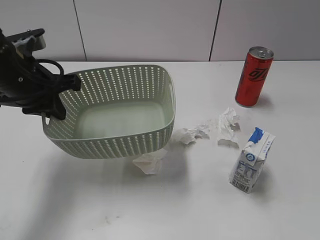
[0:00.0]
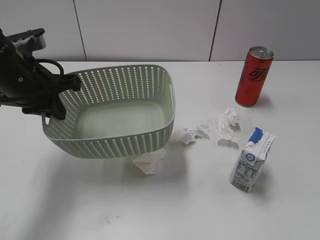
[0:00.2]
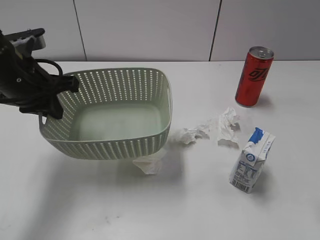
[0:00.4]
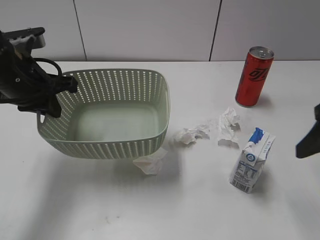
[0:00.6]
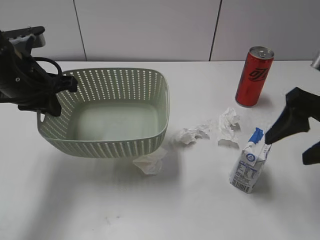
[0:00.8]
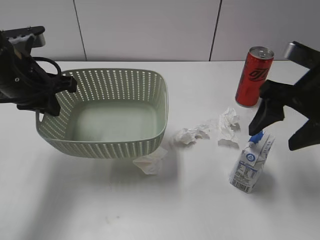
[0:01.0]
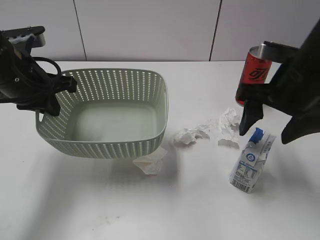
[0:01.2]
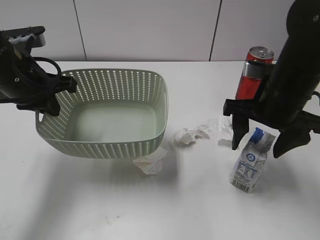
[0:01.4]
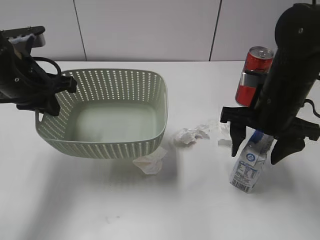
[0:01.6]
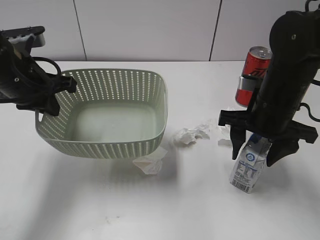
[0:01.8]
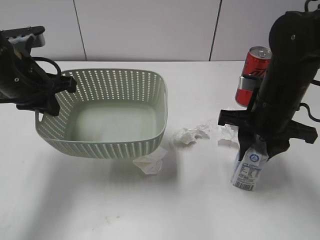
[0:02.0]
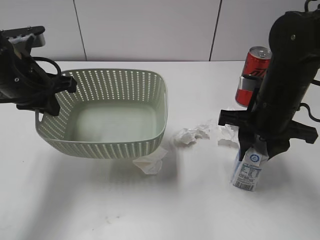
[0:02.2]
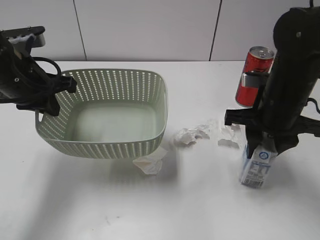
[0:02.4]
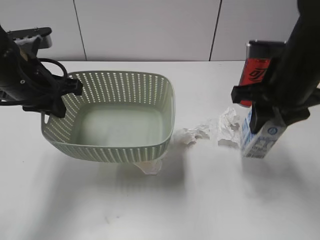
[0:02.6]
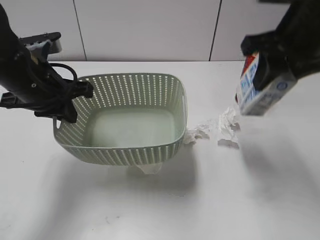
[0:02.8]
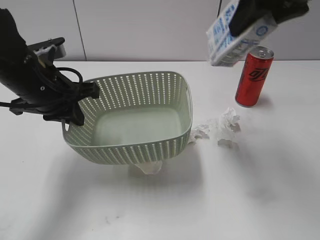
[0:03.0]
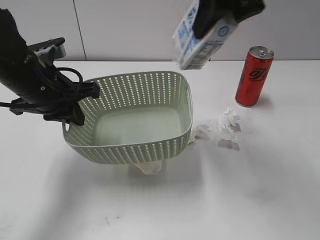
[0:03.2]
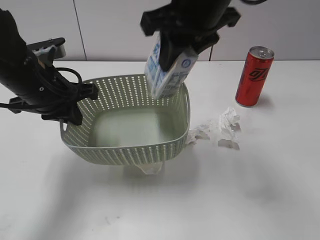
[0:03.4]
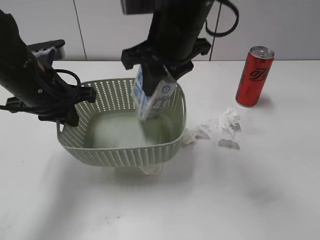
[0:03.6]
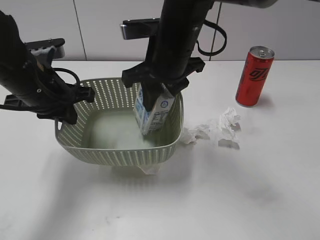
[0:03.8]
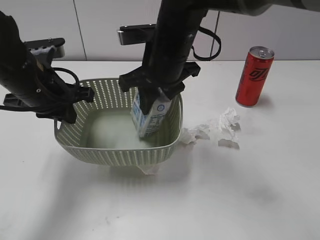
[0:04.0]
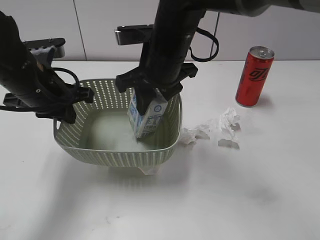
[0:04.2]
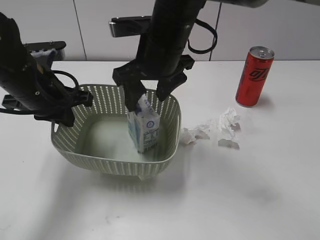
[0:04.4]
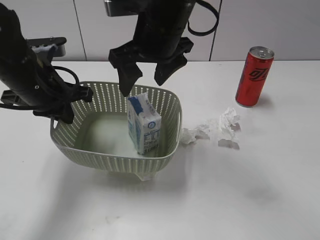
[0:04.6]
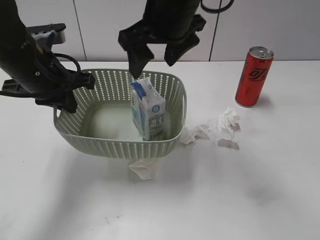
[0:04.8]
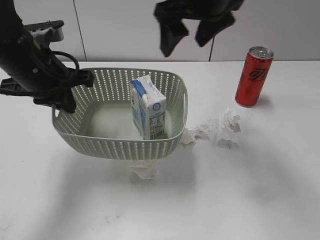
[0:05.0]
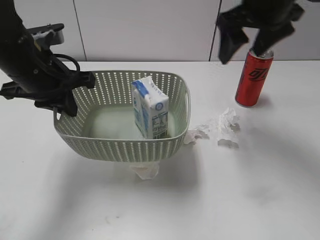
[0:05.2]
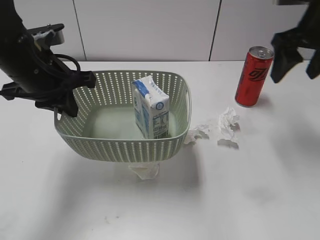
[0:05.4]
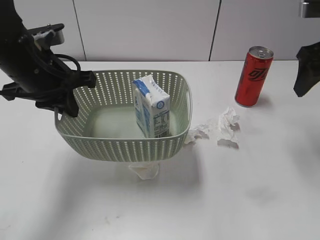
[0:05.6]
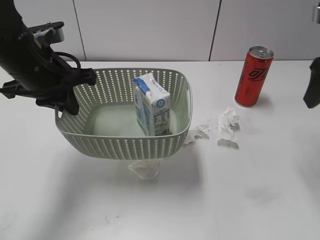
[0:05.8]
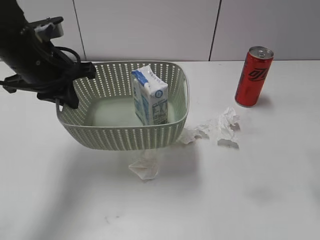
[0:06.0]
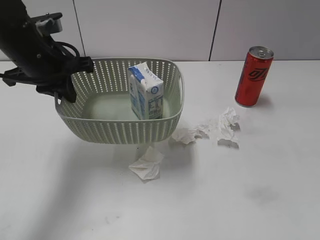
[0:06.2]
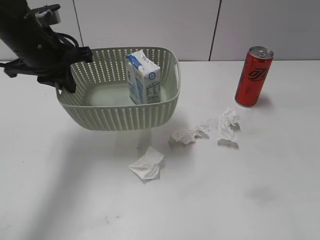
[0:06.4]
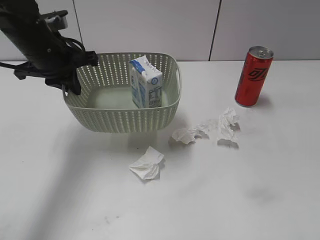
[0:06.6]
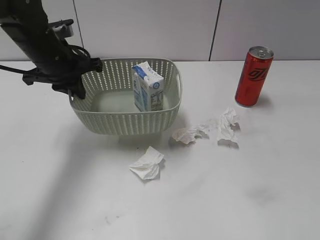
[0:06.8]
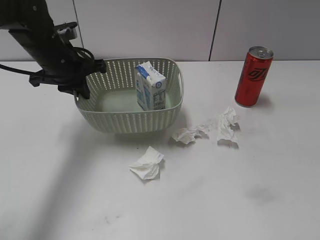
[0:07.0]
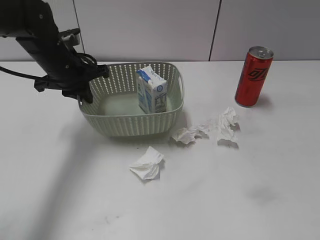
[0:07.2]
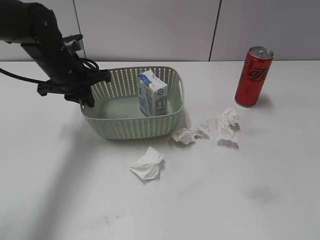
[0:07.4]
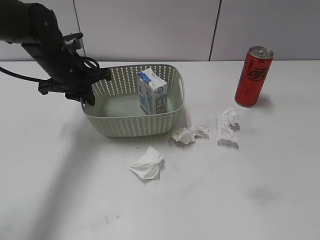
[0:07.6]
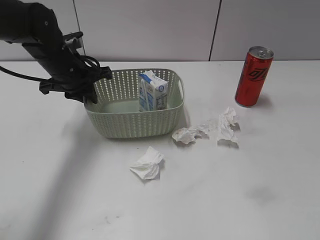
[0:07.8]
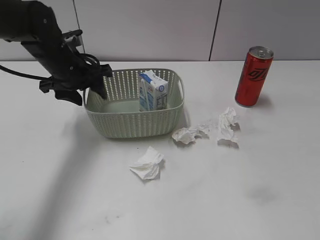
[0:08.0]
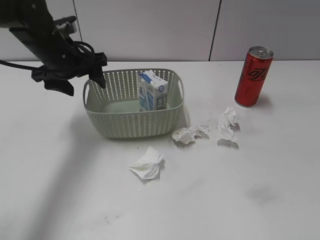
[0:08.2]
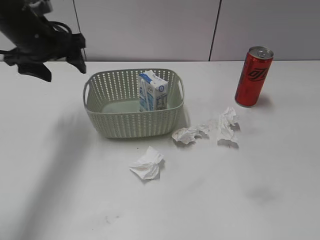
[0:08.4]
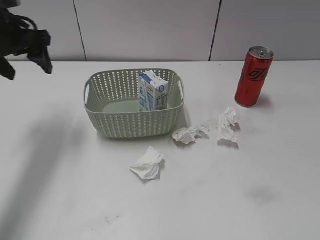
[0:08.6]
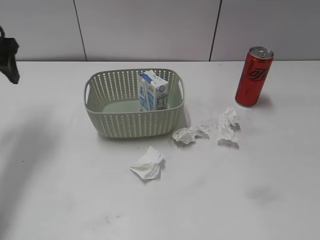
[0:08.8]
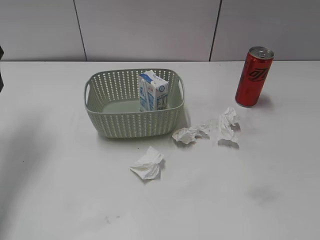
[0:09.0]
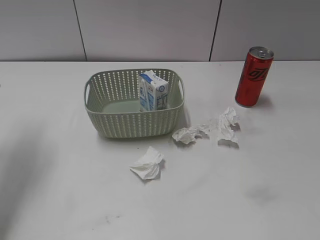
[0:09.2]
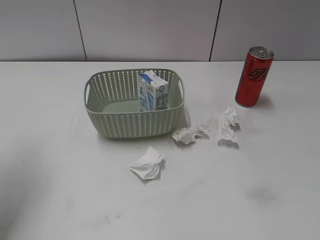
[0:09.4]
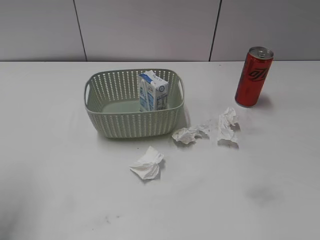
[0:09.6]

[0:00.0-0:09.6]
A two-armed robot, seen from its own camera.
Step, 0:00.4 to 0:01.8: Grasp the milk with right gripper.
Step, 0:02.0 to 0:04.6: Place the milk in the basket with right gripper.
Step, 0:04.8 to 0:08.0: Place the basket on the table with left gripper.
0:00.0 to 0:01.6: The right gripper heads forward, downward and to the left, covering some 30 cm.
0:01.6 to 0:03.2: The right gripper travels upward and to the left by roughly 20 cm, and closes up.
0:03.2 to 0:04.8: The right gripper travels to the left and downward by some 10 cm, and opens its fingers.
0:04.8 to 0:06.4: The right gripper travels to the right and backward by approximately 35 cm.
0:06.4 to 0:08.0: The right gripper moves backward, some 10 cm. Meanwhile the left gripper heads downward, covering some 5 cm, and opens its fingers.
0:08.0 to 0:09.6: The left gripper travels backward, upward and to the left by some 30 cm.

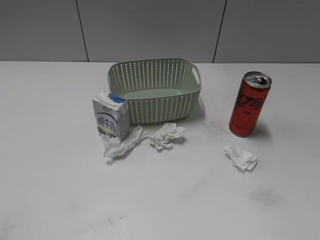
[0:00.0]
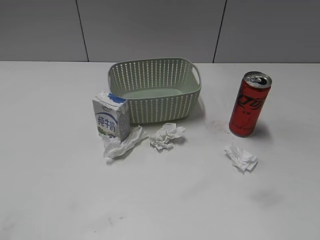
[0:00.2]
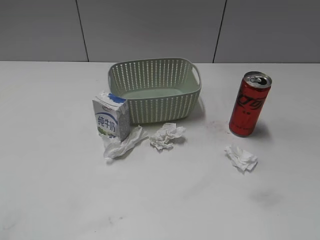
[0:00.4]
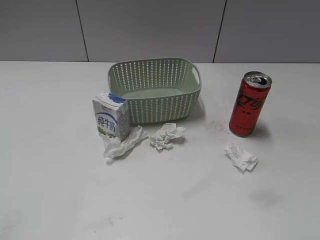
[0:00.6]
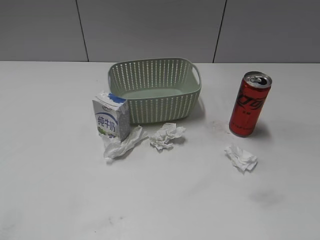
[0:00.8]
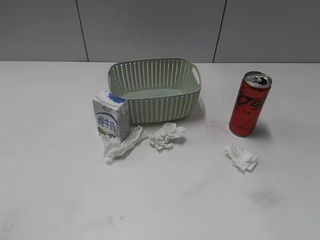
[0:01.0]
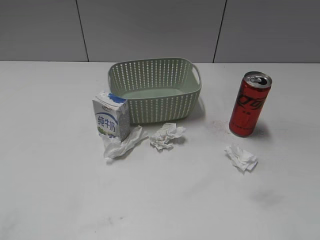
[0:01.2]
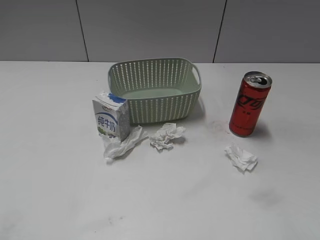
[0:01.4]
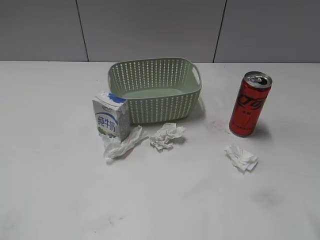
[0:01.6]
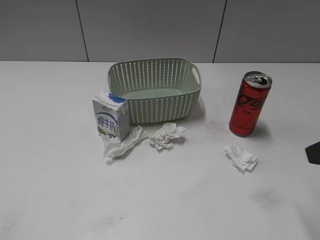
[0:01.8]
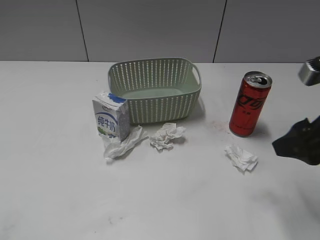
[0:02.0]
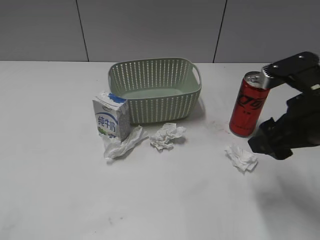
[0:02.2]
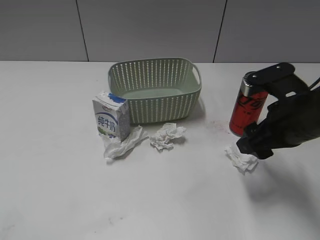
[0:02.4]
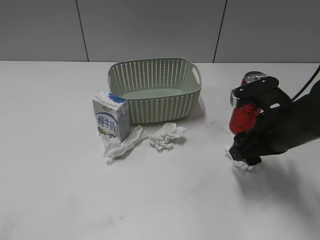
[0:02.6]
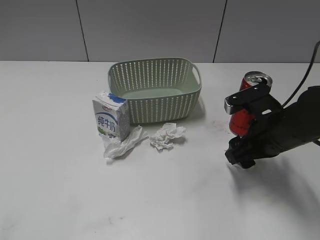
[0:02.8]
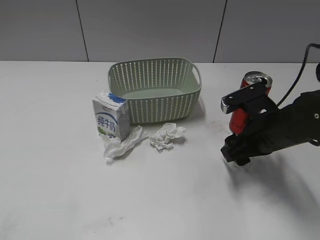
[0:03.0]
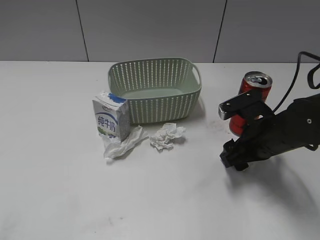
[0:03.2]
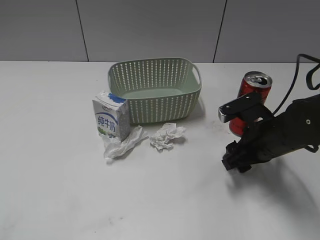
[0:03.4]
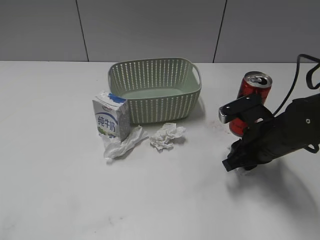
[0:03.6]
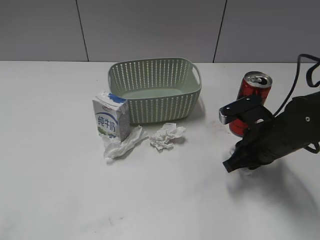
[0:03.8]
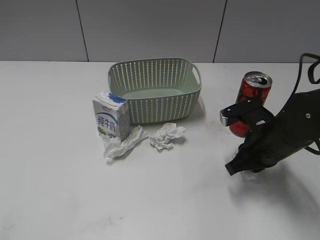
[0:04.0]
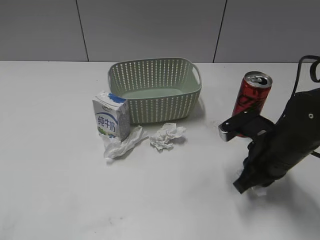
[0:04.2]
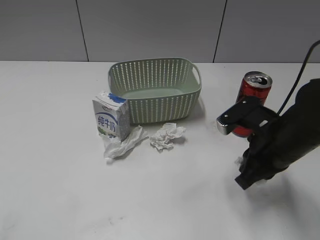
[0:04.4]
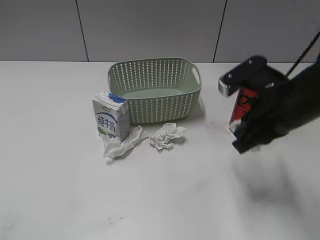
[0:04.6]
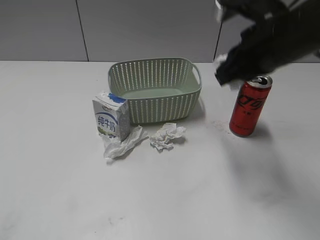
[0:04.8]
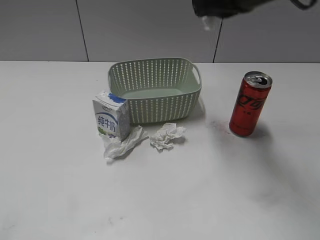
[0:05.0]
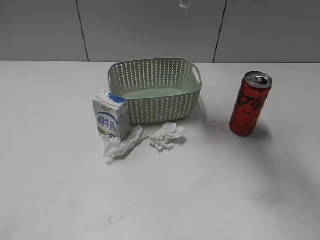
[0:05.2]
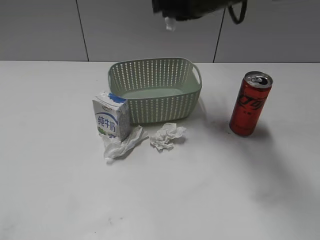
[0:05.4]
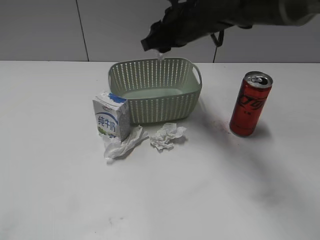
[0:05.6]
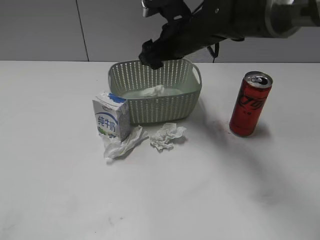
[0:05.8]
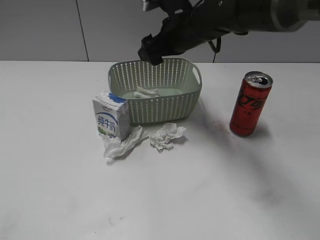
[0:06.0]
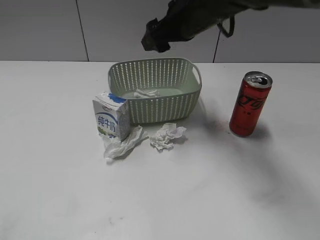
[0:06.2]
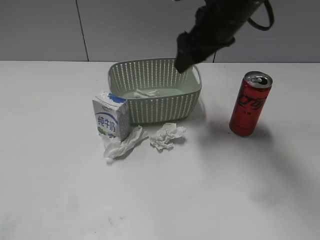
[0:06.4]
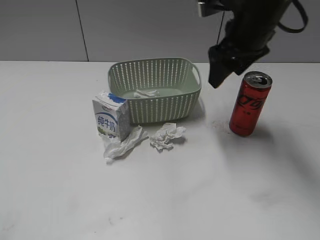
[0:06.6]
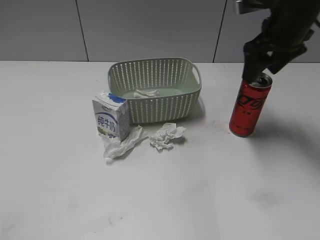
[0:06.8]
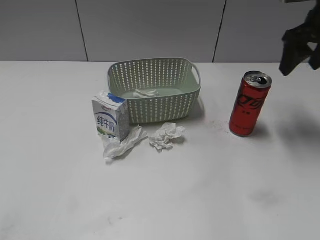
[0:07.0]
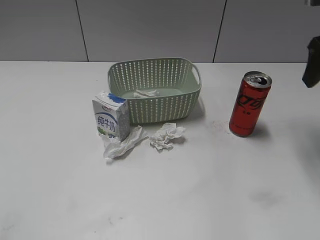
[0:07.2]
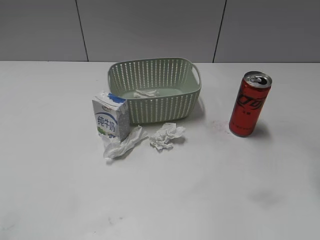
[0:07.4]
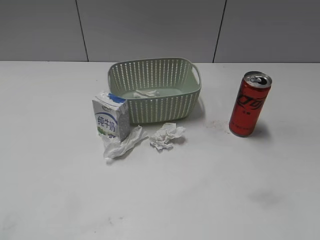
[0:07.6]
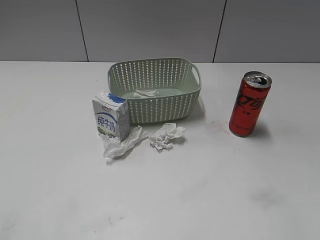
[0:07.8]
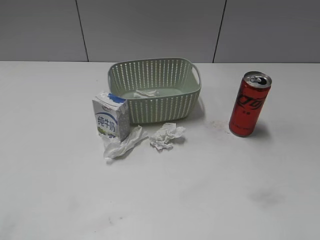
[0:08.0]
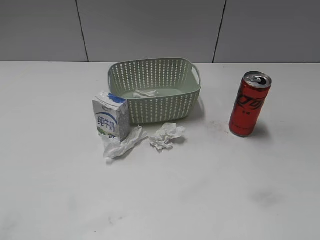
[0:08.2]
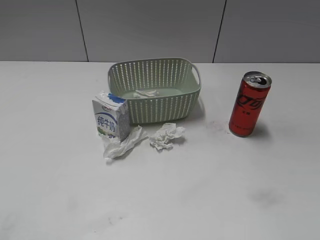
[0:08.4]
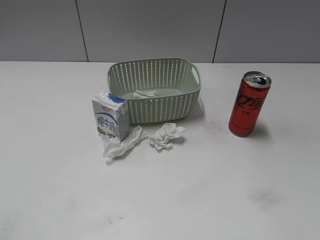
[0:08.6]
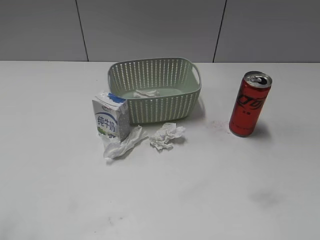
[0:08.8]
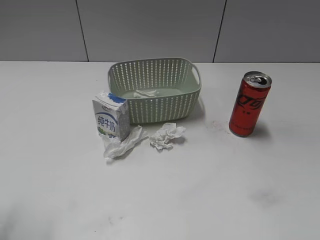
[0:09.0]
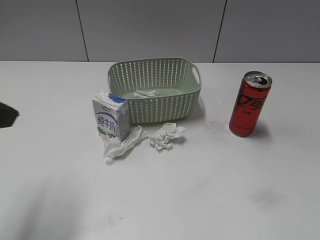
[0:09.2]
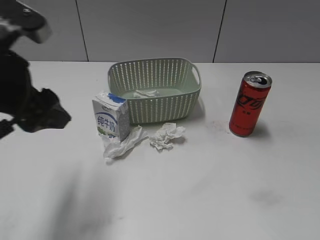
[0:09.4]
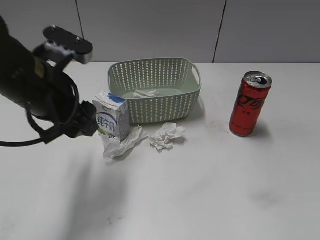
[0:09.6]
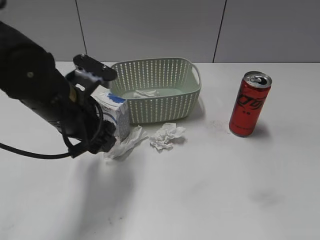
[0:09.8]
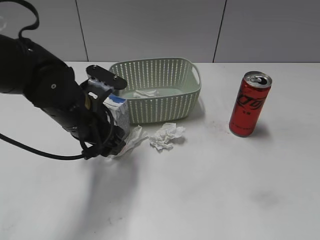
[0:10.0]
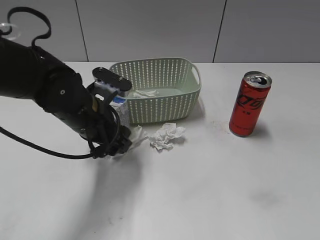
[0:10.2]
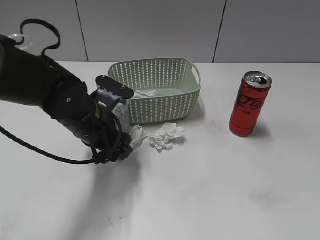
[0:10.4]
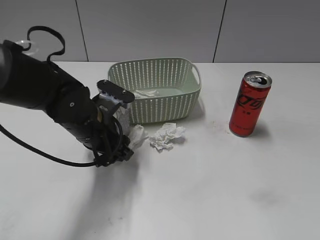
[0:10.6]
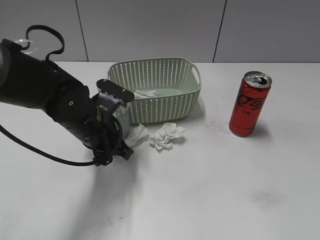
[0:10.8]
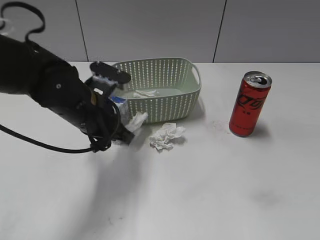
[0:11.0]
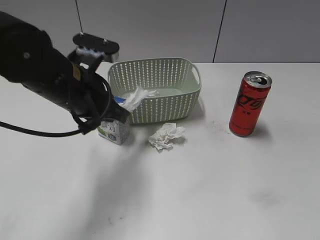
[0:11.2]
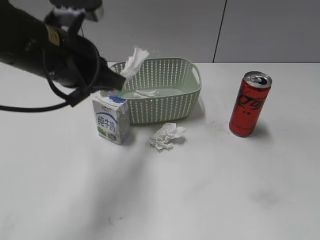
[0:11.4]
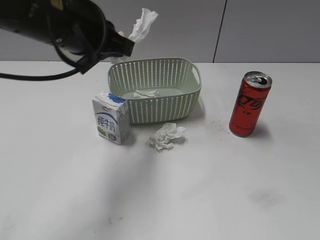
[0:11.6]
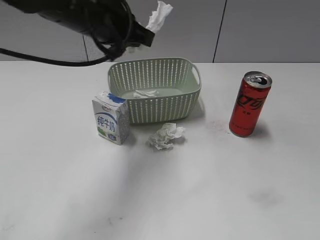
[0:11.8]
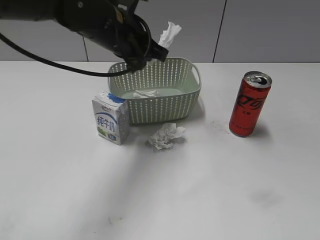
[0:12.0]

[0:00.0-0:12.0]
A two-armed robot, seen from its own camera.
Step, 0:01.8 to 0:03.8: Grasp the waste paper with right gripper.
Step, 0:04.0 to 0:06.0: Place the waste paper in the basket with right gripper.
Step, 0:06.2 to 0:11.0: Grasp the waste paper with left gripper.
0:01.6 to 0:03.0: The right gripper travels downward, forward and to the left by approximately 20 cm.
0:03.0 to 0:04.4: The right gripper closes up.
0:04.4 to 0:06.0: The right gripper goes approximately 25 cm forward, to the left and upward, and opens.
0:06.0 to 0:07.6: The right gripper shifts roughly 35 cm to the right, backward and upward.
0:09.0 to 0:10.4: The left gripper travels forward, to the right and downward by some 30 cm.
0:10.4 to 0:12.0: The left gripper shifts approximately 15 cm upward and forward, and closes up.
